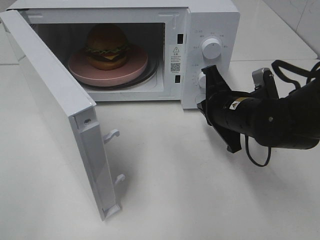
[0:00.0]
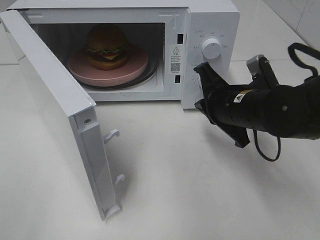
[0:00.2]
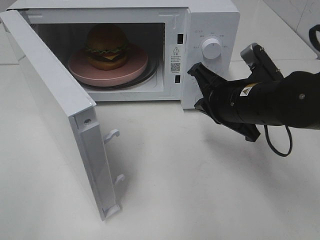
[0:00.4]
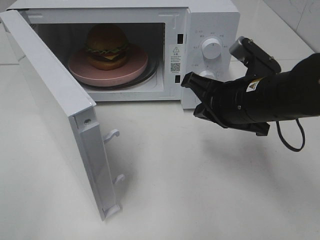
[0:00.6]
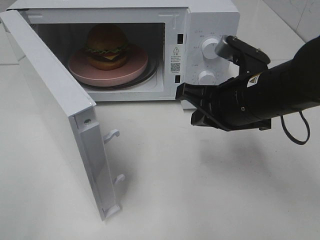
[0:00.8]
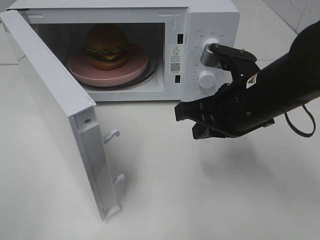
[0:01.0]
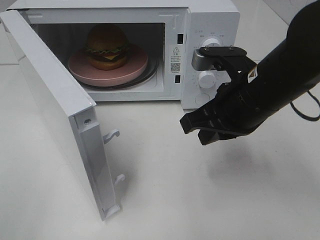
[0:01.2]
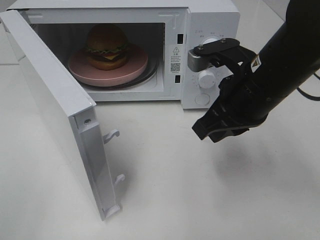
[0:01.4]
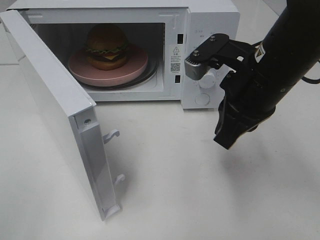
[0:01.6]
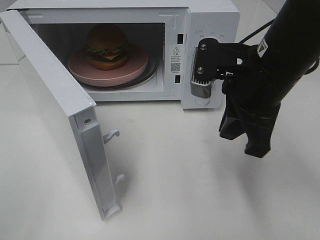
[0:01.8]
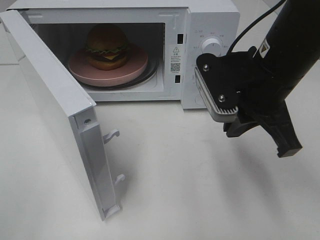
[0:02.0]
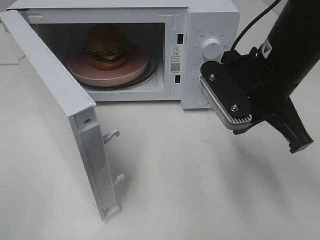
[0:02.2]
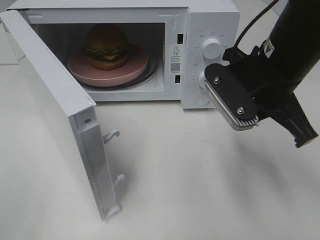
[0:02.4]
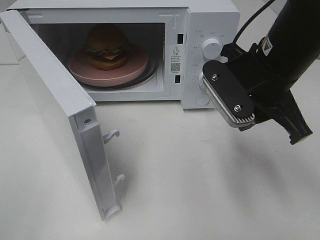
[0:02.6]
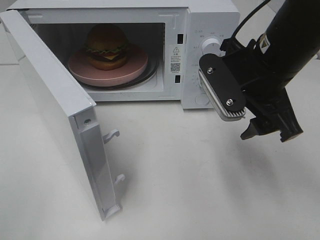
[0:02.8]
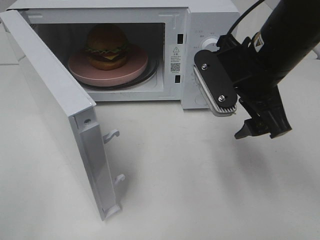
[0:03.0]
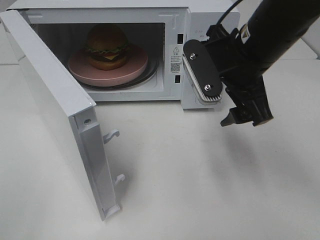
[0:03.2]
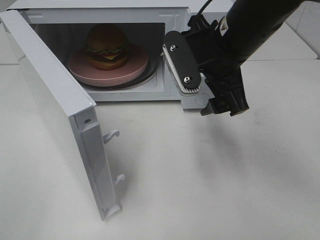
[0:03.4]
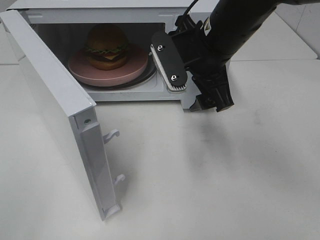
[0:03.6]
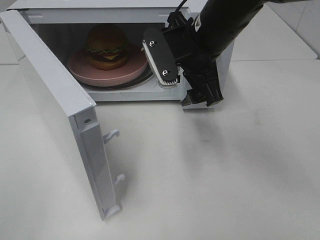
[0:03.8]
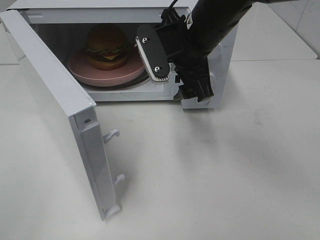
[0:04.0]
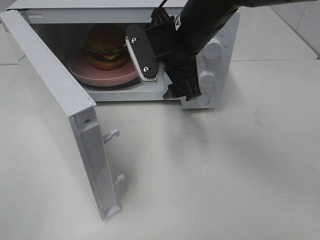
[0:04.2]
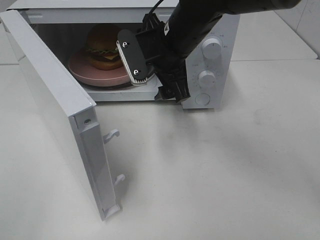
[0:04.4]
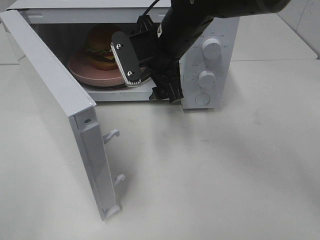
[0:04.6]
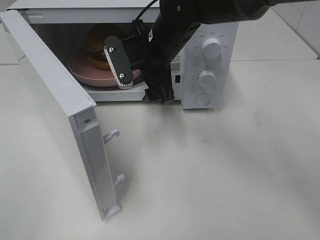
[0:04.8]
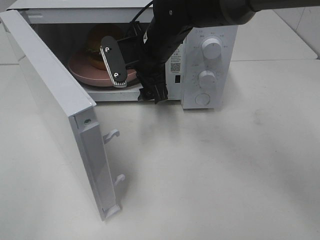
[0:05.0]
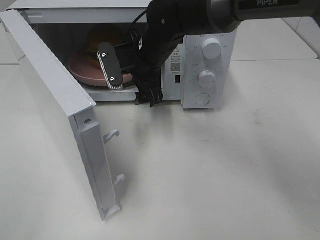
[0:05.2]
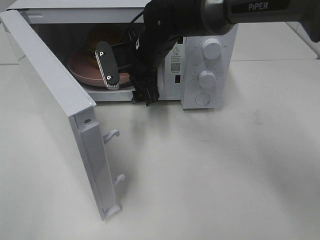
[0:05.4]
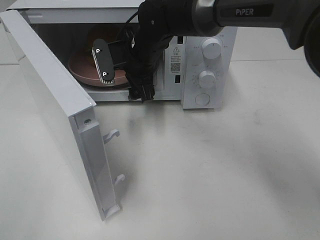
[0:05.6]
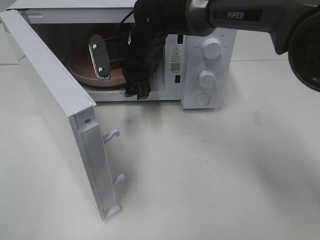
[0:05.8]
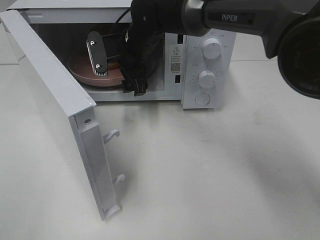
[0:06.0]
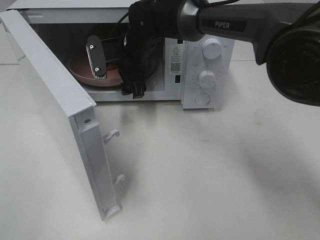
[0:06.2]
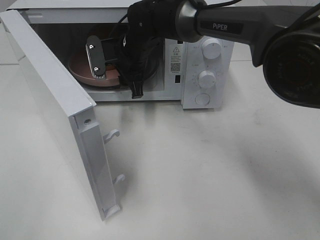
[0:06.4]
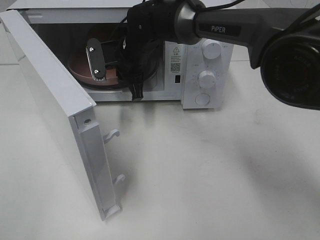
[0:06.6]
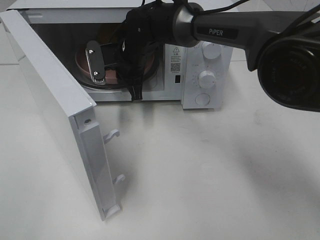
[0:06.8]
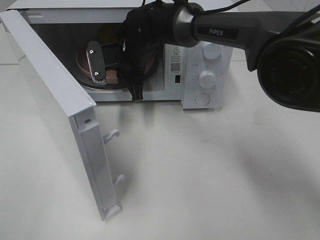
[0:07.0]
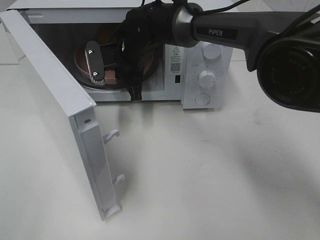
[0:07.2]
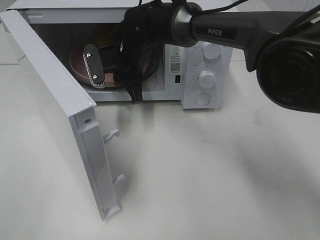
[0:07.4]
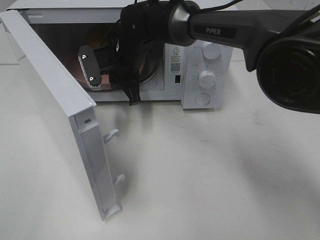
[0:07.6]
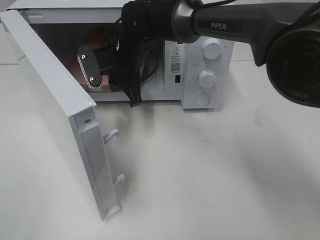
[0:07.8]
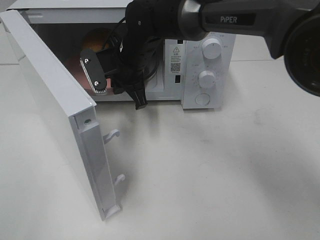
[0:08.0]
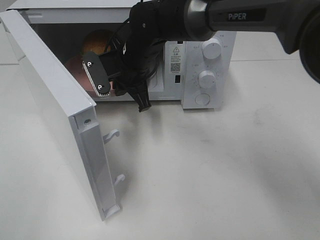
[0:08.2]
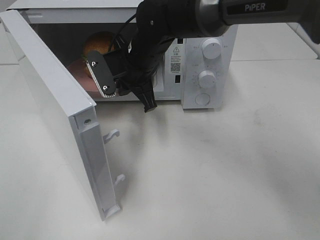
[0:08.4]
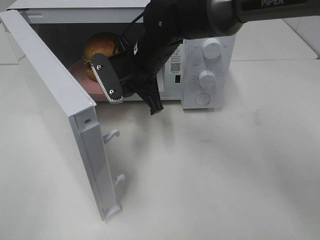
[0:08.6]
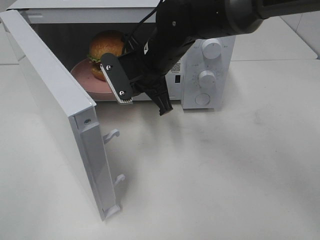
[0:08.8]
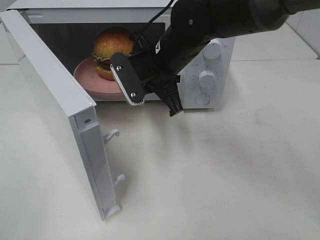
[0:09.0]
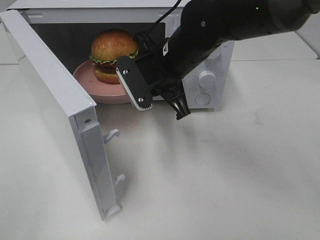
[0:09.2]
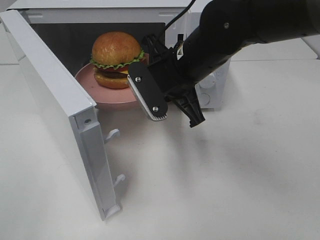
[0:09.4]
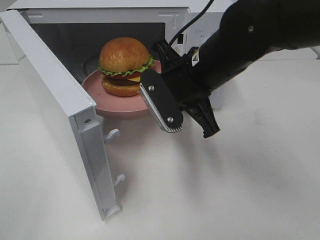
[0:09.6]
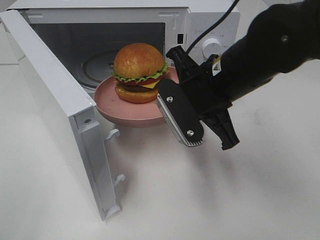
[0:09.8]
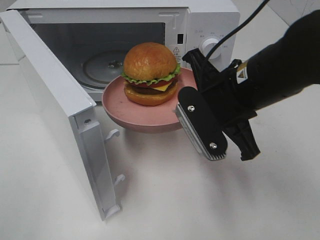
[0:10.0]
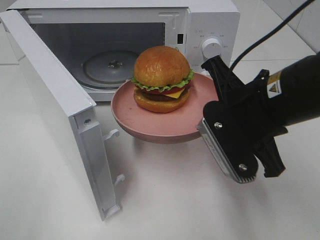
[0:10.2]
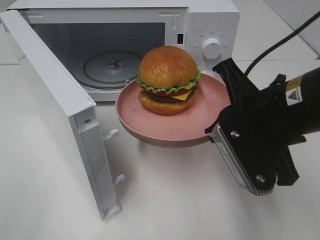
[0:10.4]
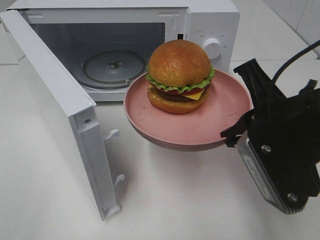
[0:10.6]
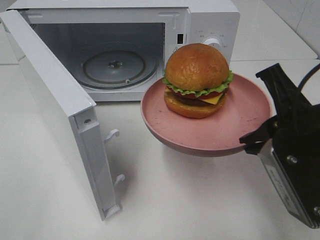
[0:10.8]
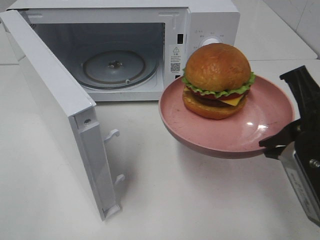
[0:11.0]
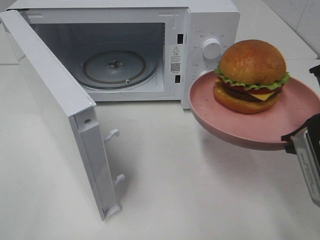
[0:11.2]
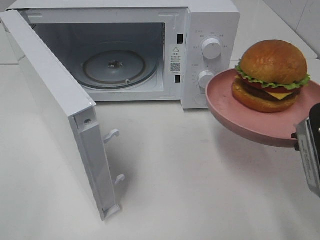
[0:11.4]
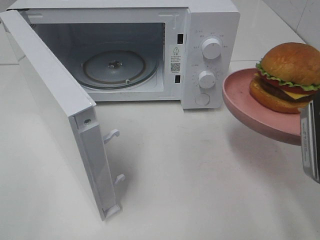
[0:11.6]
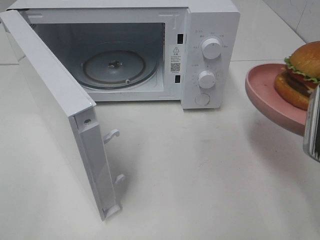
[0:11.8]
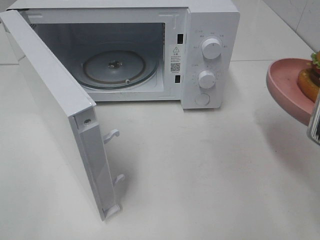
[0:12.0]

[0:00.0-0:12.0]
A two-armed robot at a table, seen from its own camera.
Task of the whole recording: Heat the burger.
Step, 0:00.0 to 0:06.8: Right hand: grab the plate with the hamburger.
0:00.0 to 0:01.6: The right gripper goes some 10 cm upward.
0:01.6 to 0:03.0: The right gripper opens up.
0:03.0 to 0:04.4: The right gripper goes some 15 cm to the left and forward.
0:04.4 to 0:06.0: The right gripper moves forward and to the left, roughly 10 cm.
0:06.0 to 0:07.6: The right gripper closes up.
0:07.6 to 0:09.0: The right gripper travels backward and to the right by approximately 10 cm.
0:09.0 to 0:10.4: The right gripper travels backward and to the right by about 20 cm.
0:10.4 to 0:12.0: The right gripper travels to the right by some 10 cm.

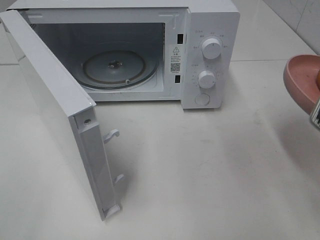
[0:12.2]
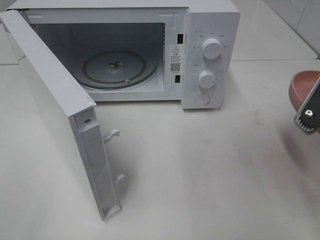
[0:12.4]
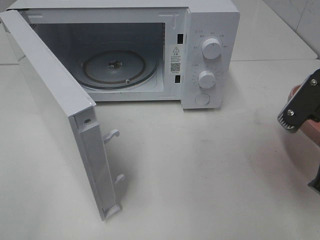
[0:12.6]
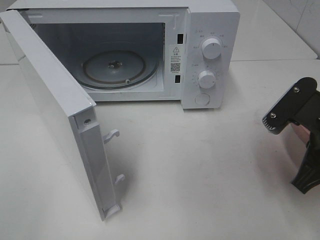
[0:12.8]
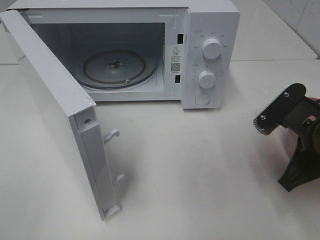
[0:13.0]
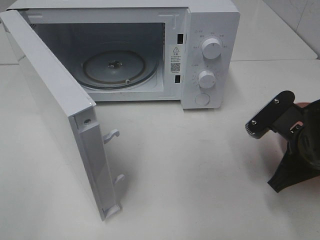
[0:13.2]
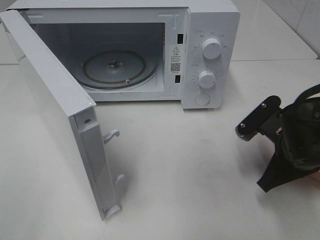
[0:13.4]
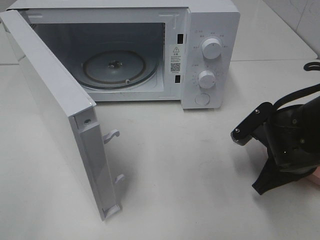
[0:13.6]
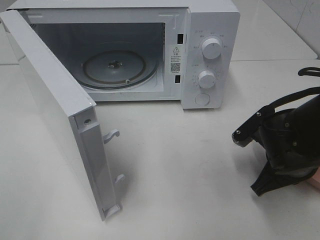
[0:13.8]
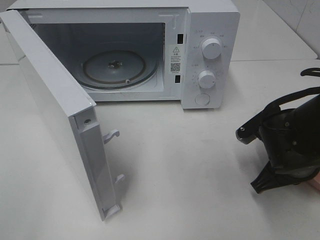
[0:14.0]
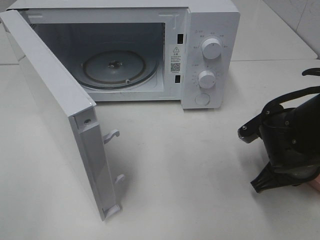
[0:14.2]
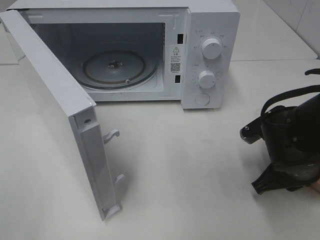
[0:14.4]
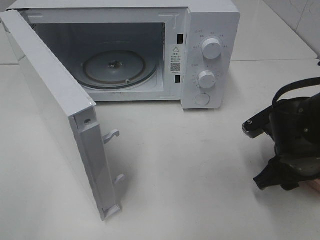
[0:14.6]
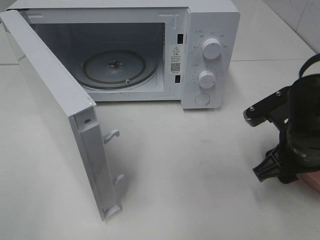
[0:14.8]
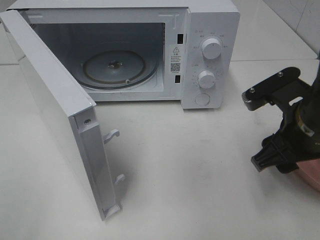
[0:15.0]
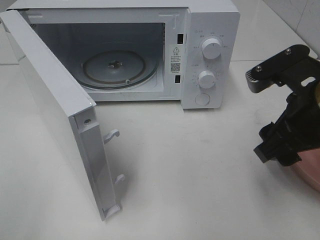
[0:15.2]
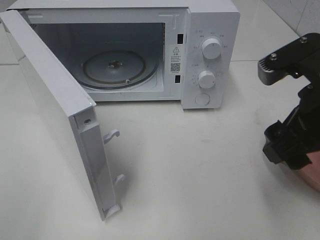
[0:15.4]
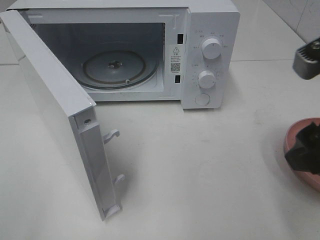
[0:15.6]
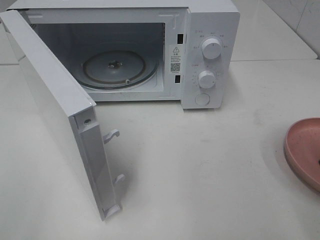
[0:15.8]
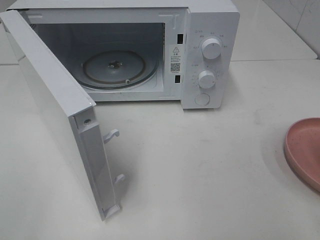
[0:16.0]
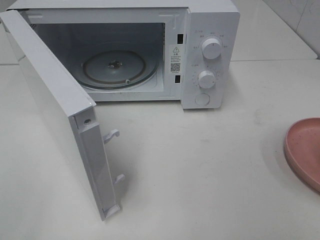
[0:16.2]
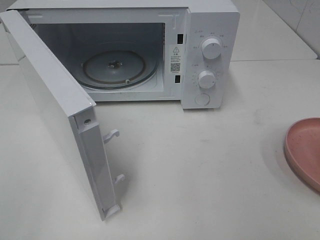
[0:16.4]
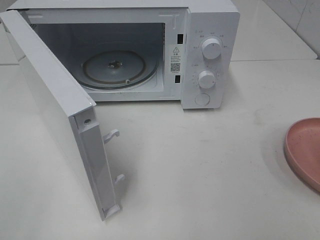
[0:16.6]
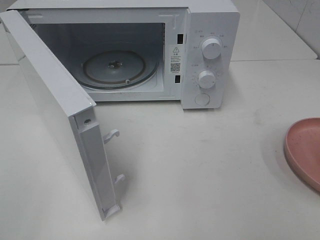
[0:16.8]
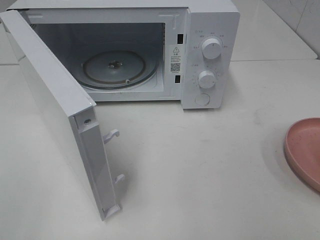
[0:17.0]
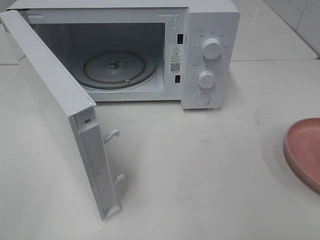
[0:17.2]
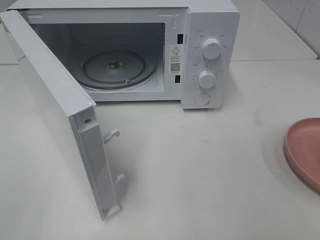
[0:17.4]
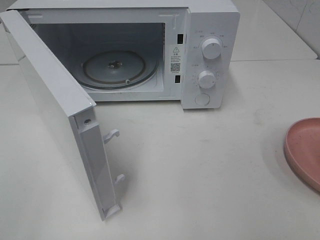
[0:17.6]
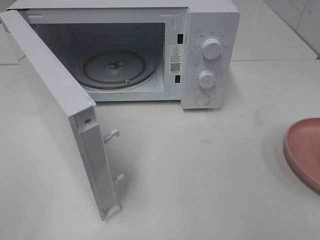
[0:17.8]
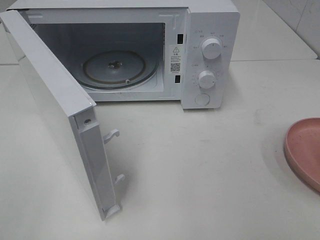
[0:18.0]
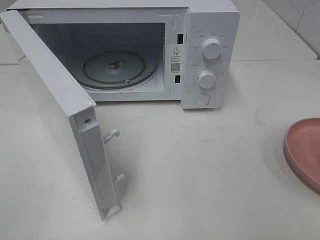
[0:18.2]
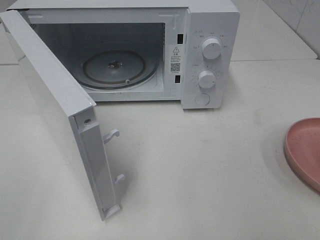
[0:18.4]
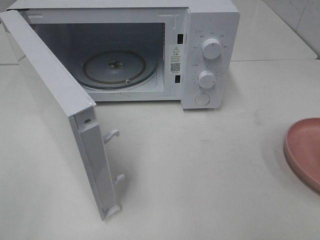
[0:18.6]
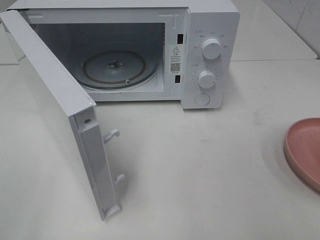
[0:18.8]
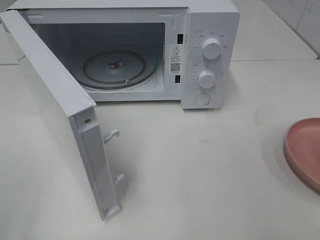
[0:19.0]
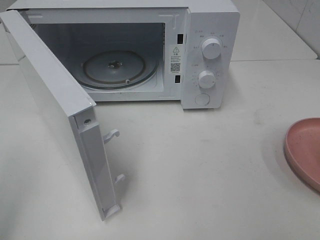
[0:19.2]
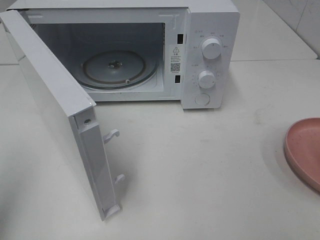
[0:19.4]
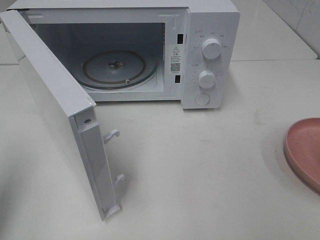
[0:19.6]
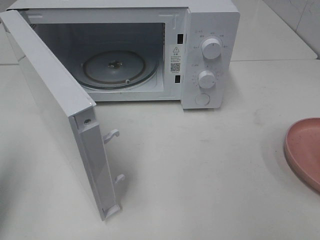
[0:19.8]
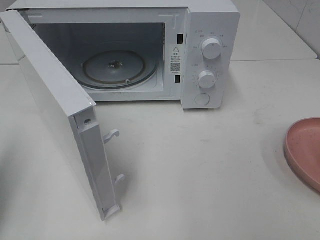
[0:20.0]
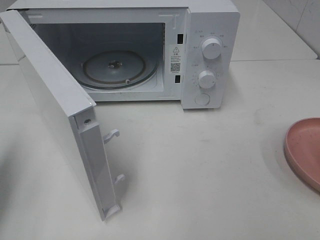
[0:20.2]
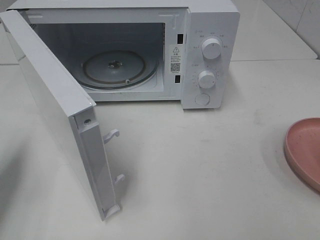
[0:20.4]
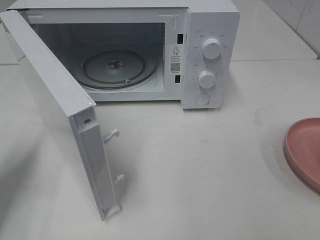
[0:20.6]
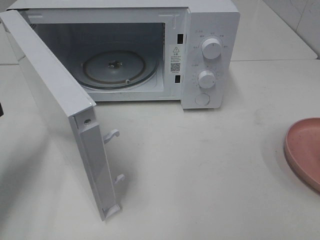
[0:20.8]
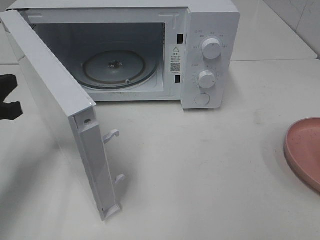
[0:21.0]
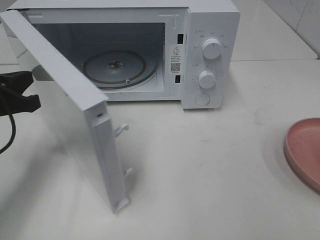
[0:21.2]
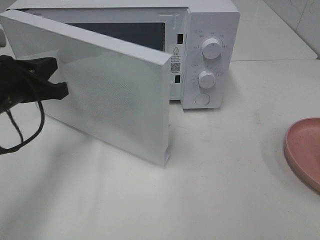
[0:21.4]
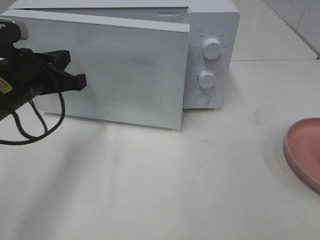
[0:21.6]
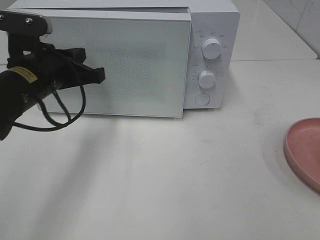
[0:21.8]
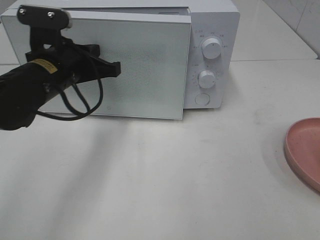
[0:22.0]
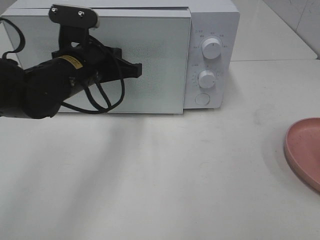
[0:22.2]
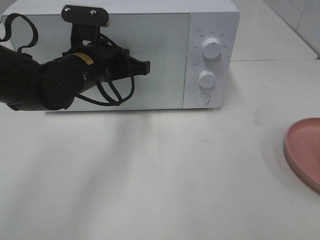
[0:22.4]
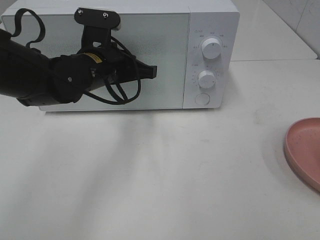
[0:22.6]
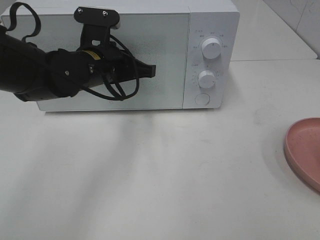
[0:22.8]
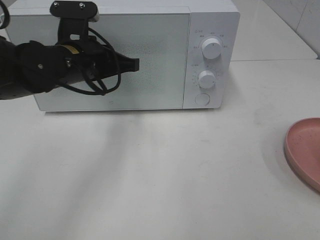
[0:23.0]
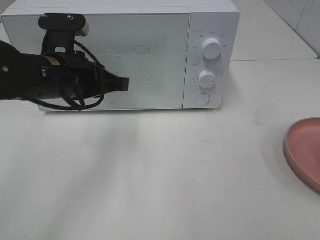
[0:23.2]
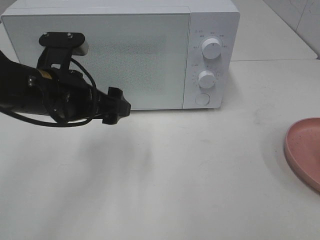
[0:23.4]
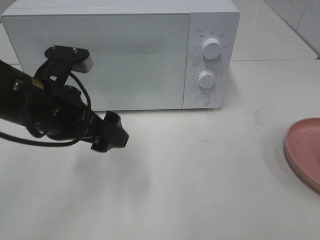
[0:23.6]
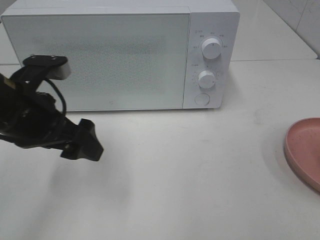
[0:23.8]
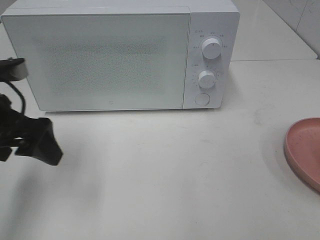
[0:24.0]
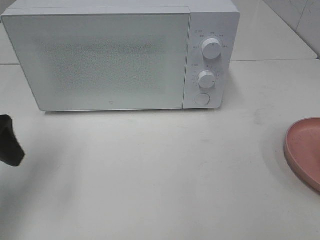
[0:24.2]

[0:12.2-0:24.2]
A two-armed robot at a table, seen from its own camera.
Task of the whole recording: Heat the burger.
Step, 0:12.2 to 0:14.6: Right hand: place the plate on the table.
Step, 0:14.8 to 0:23.2: Left hand: close the microwave door.
0:12.2 to 0:13.8: The right gripper goes some 15 cm downward and forward.
0:13.8 to 0:15.2: The right gripper is displaced upward by roughly 15 cm, and opens.
0:15.2 to 0:16.6: The right gripper goes roughly 20 cm backward and to the right.
0:18.2 to 0:19.8: The left gripper shifts approximately 15 cm forward, and closes up.
0:19.8 to 0:21.2: The left gripper travels forward, downward and to the right by approximately 15 cm.
0:21.2 to 0:22.6: The left gripper is displaced to the right and forward by approximately 20 cm.
0:22.6 to 0:24.2: The left gripper is displaced to the left and backward by roughly 20 cm, and opens its fingers.
